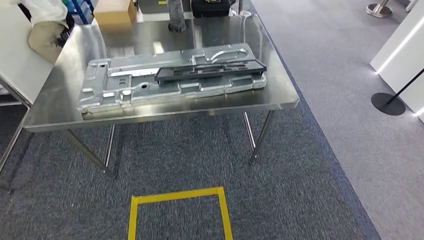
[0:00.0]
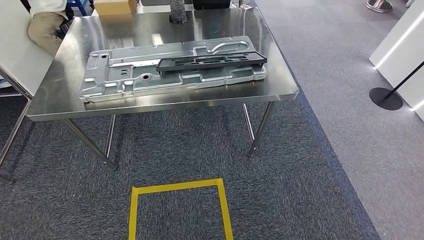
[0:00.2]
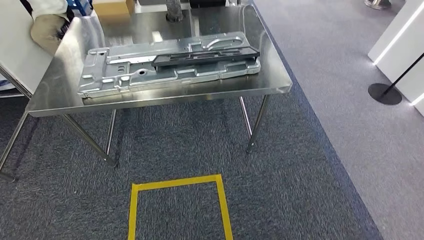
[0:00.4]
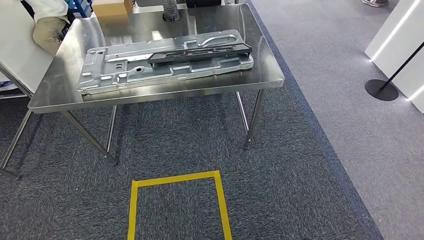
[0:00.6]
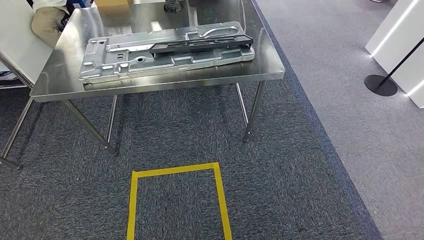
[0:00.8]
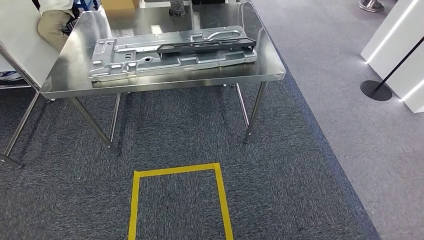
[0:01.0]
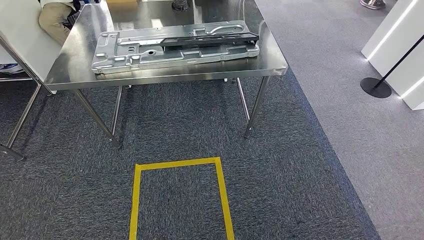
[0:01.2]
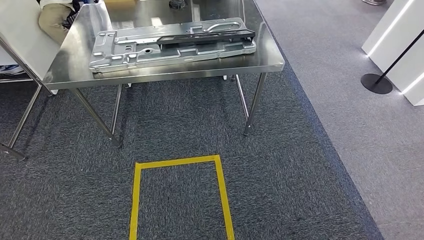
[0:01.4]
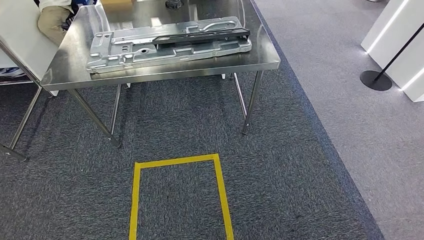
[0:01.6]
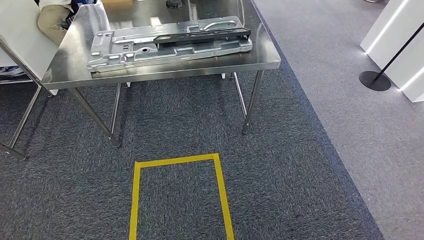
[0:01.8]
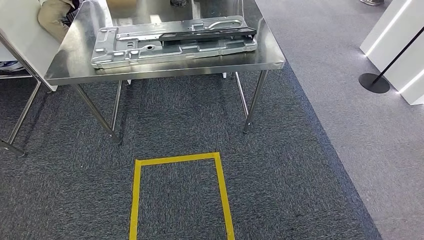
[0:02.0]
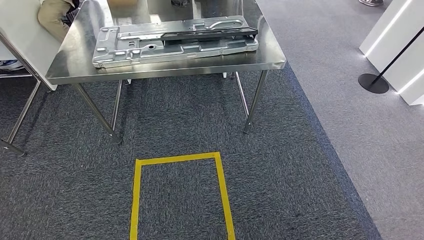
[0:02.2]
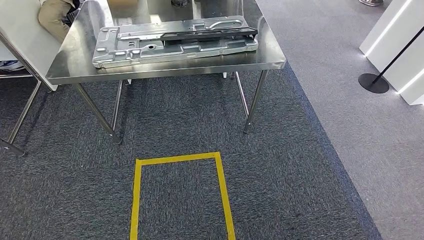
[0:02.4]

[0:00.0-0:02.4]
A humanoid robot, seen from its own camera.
Step, 0:00.0 to 0:02.4: Move to the initial position of the workbench.
0:01.2 to 0:02.4: The hands make only small movements.
